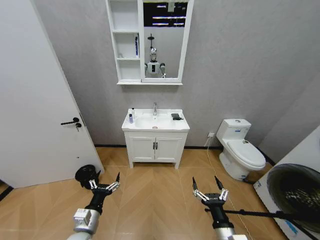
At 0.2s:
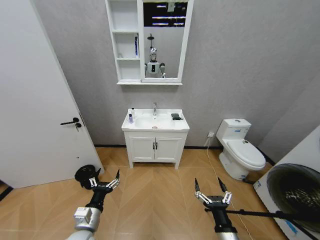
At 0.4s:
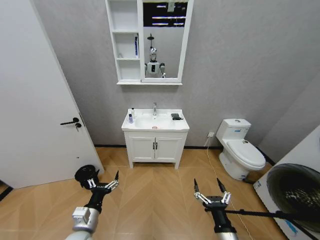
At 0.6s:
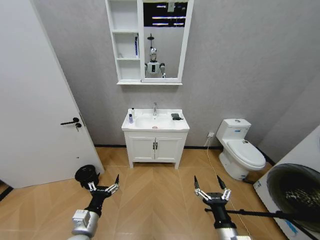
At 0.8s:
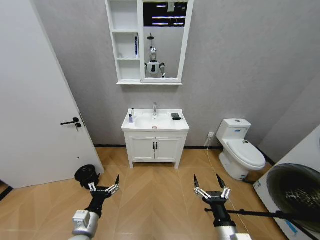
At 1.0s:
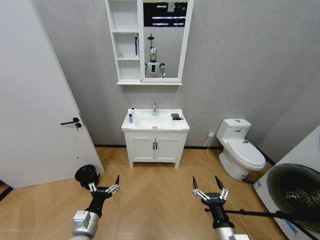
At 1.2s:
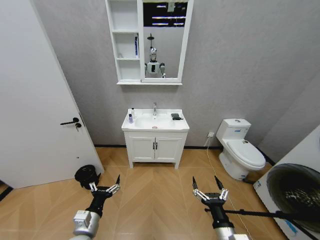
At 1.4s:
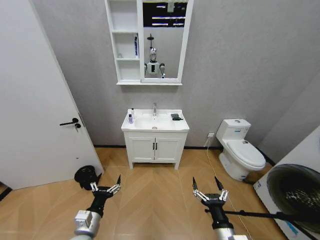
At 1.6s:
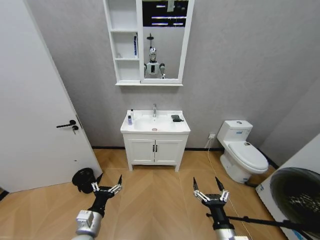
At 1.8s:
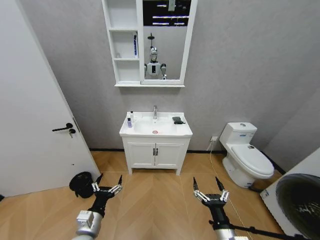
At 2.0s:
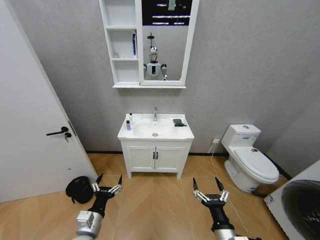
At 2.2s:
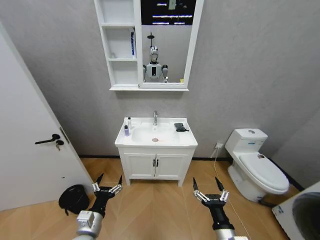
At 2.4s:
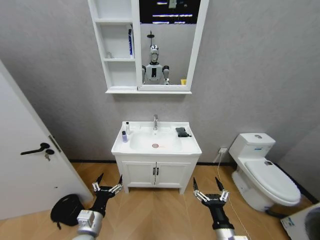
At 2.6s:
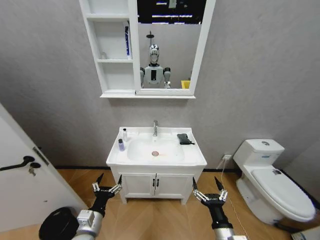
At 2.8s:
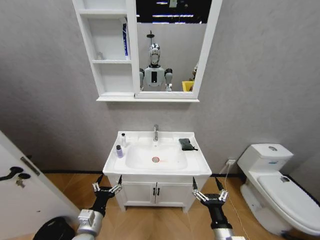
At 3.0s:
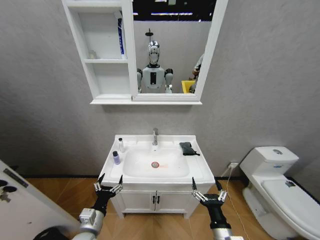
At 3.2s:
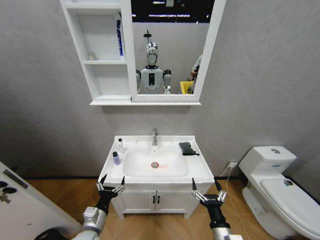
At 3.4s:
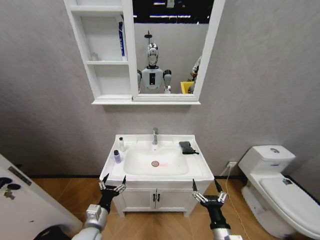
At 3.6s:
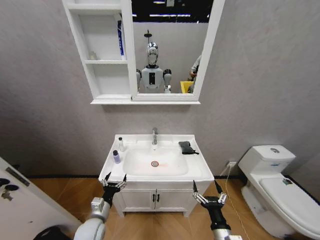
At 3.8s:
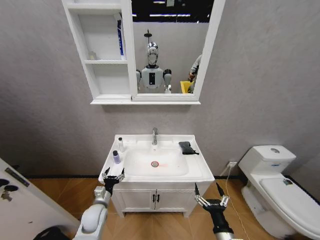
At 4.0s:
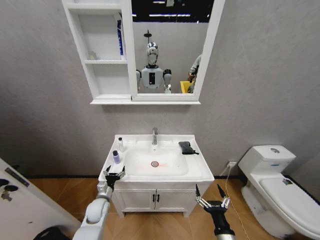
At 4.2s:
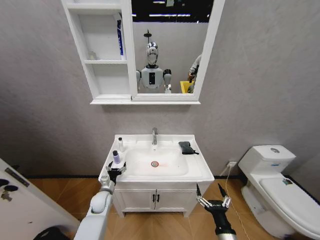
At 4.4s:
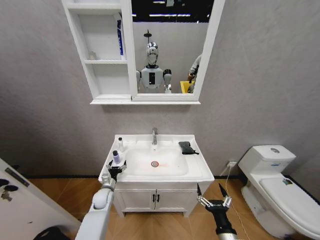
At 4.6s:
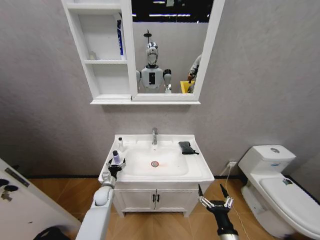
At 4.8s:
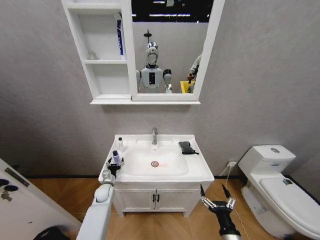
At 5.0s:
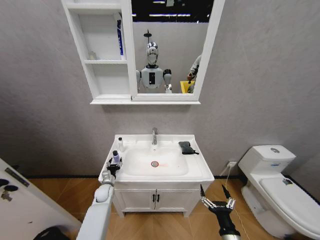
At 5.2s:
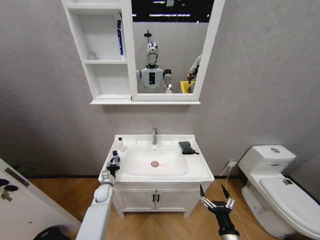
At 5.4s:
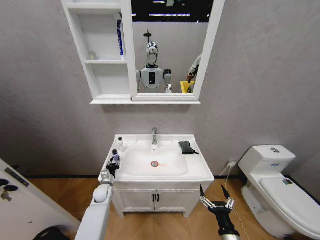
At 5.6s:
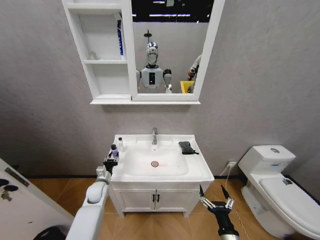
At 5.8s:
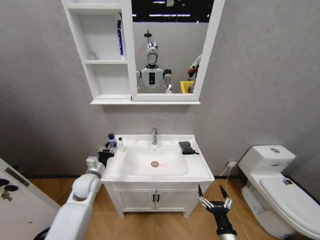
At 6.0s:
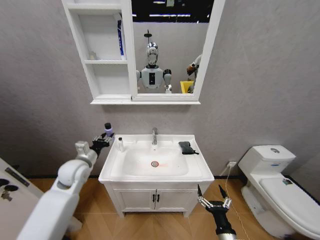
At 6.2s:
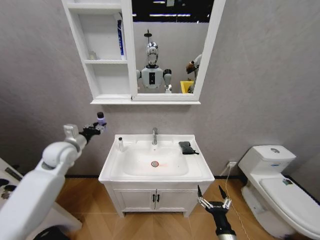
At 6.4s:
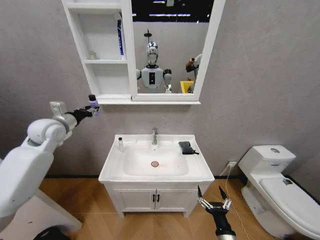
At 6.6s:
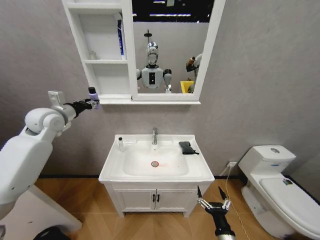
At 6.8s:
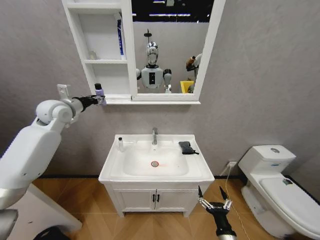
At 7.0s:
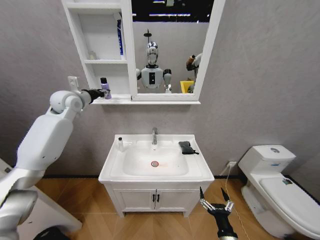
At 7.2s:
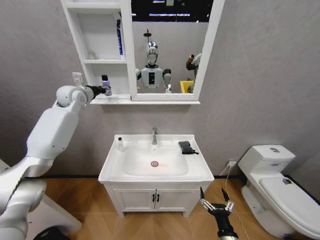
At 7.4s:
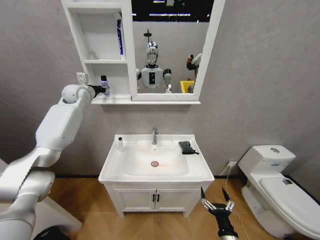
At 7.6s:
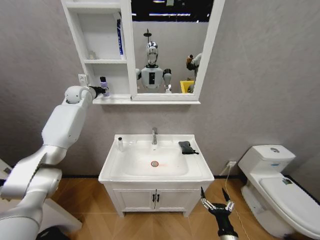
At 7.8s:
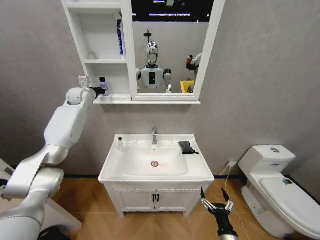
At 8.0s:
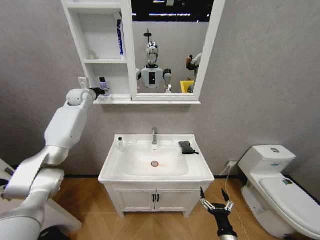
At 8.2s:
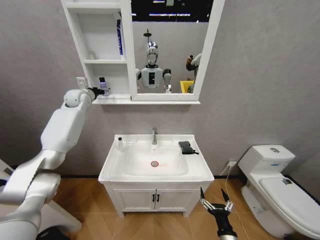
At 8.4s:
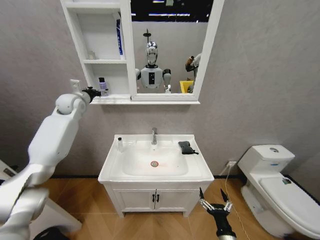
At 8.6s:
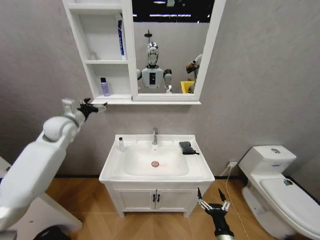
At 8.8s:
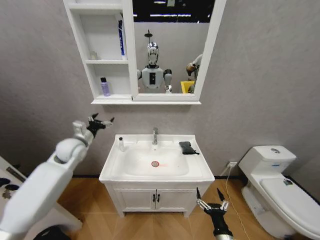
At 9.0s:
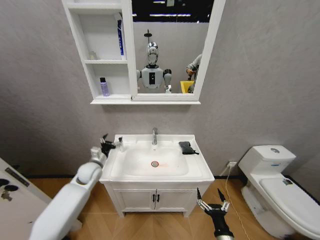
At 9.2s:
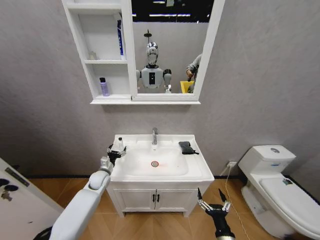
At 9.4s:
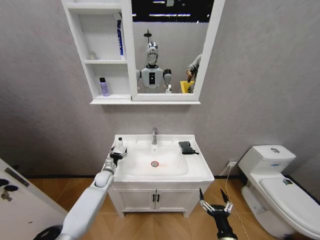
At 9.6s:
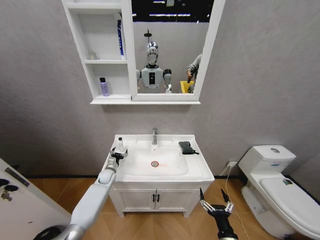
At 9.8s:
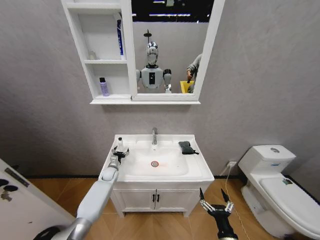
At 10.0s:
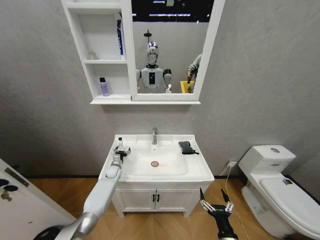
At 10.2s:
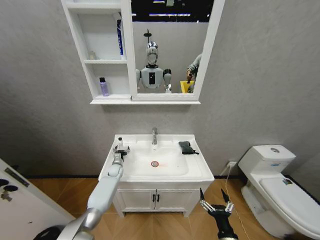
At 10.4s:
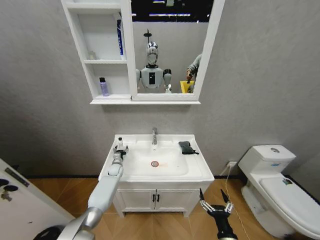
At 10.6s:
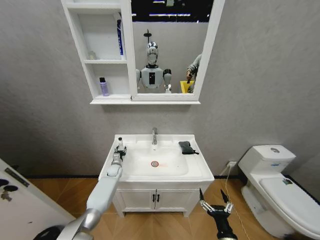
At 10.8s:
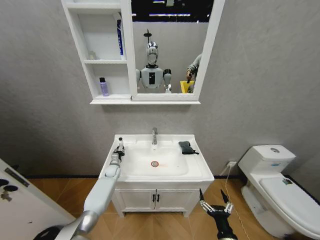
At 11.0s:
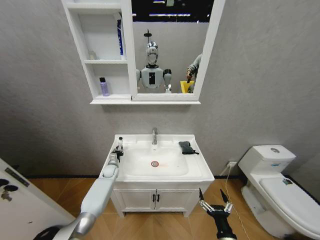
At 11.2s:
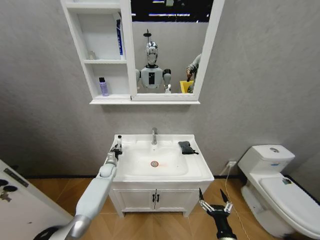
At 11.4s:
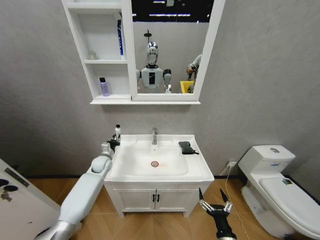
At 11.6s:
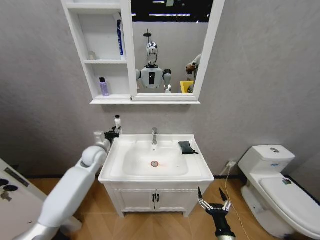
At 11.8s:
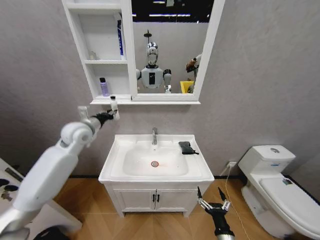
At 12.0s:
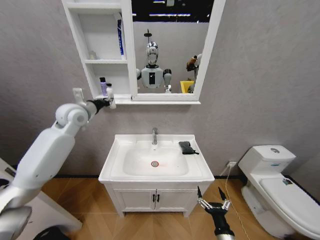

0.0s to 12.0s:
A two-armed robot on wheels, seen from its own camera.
Task of the whole recording: Move facial cleanser and shampoo from washbasin to cabinet, then wipe washbasin with towel.
3.0s to 4.4s: The left gripper heads forward and downward, covering about 20 cm.
4.4s to 6.0s: The left gripper heads upward, covering roughly 25 cm, and closes up.
6.0s to 7.6s: The left gripper moves forward and upward, some 35 cm.
7.6s to 9.0s: The left gripper heads downward and backward, covering about 35 cm, and opens its fingers.
9.0s to 10.4s: The left gripper shifts some 20 cm downward and forward.
10.4s to 12.0s: The left gripper goes roughly 40 cm upward, and closes up.

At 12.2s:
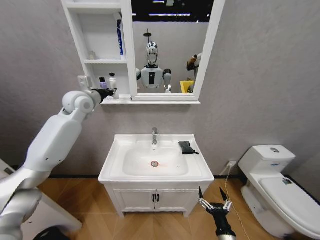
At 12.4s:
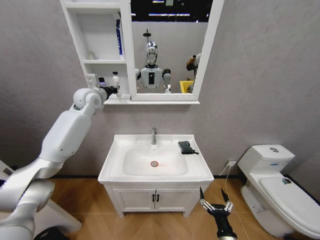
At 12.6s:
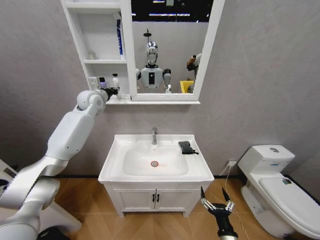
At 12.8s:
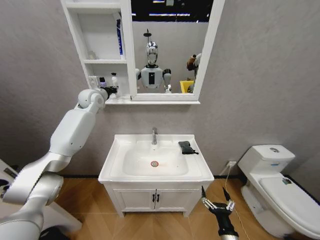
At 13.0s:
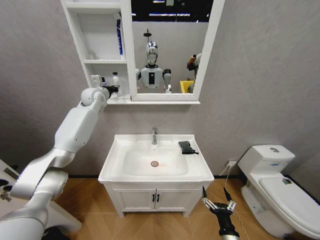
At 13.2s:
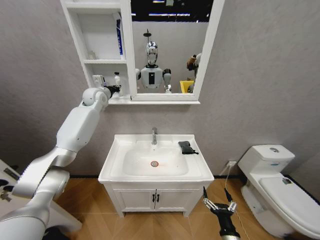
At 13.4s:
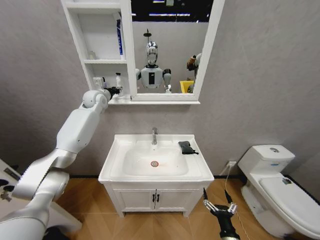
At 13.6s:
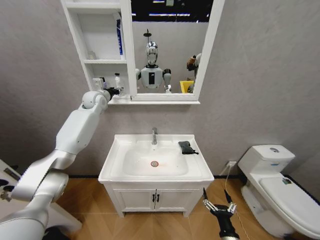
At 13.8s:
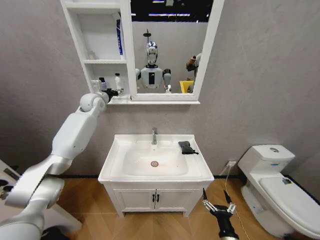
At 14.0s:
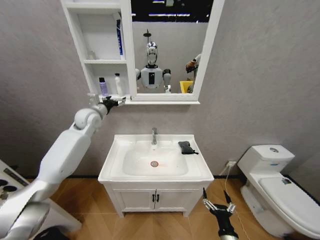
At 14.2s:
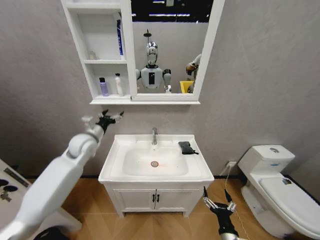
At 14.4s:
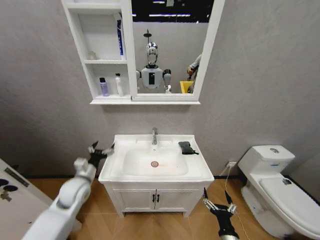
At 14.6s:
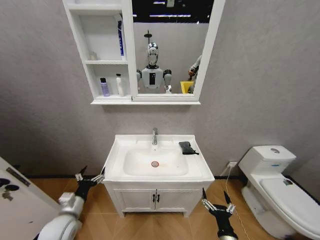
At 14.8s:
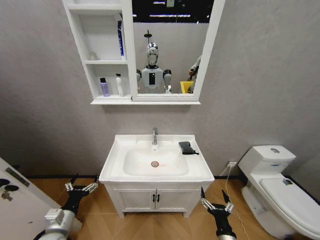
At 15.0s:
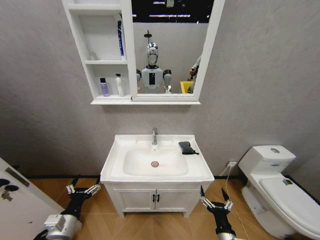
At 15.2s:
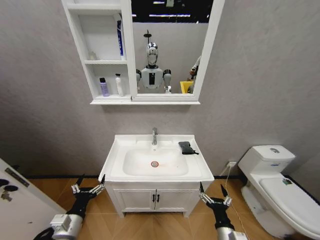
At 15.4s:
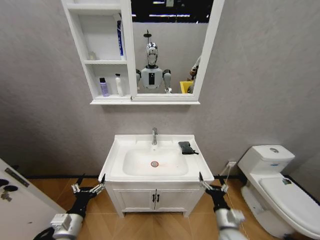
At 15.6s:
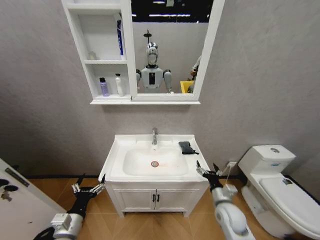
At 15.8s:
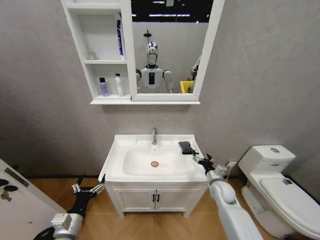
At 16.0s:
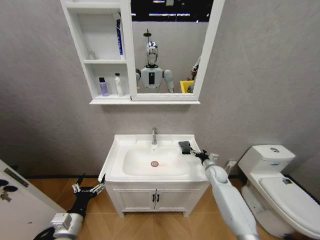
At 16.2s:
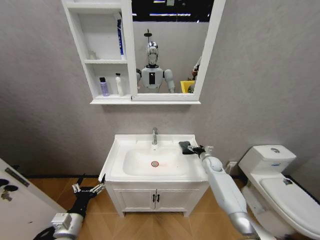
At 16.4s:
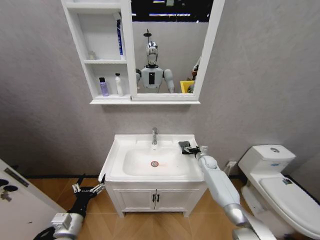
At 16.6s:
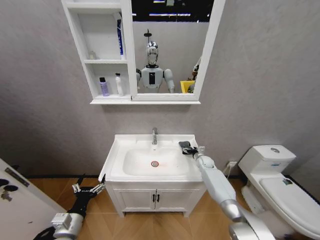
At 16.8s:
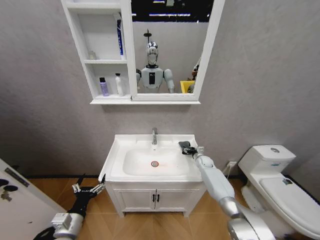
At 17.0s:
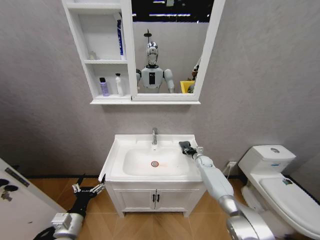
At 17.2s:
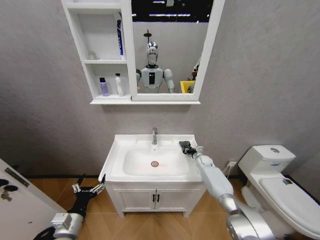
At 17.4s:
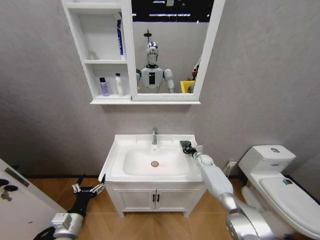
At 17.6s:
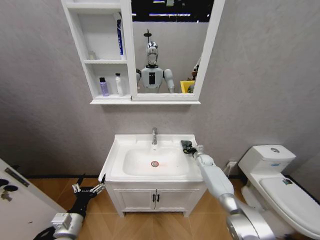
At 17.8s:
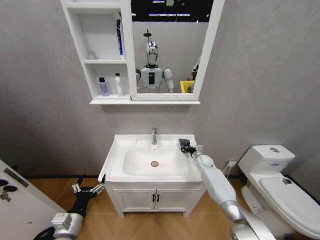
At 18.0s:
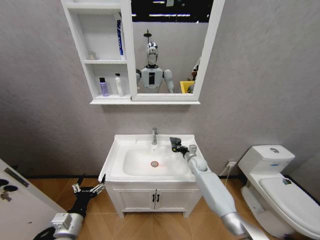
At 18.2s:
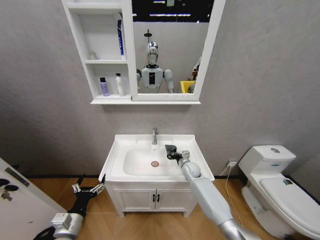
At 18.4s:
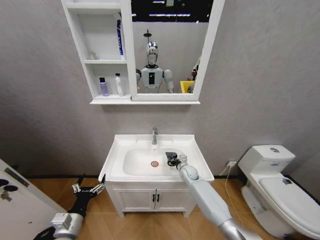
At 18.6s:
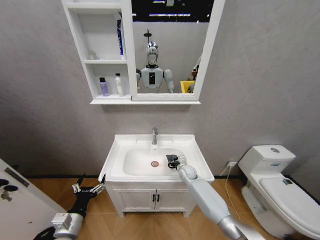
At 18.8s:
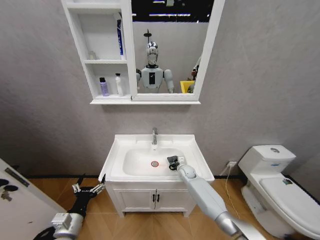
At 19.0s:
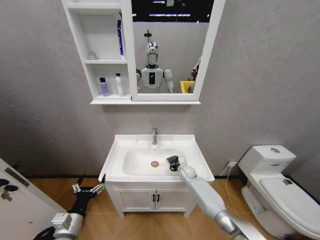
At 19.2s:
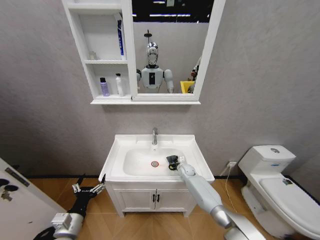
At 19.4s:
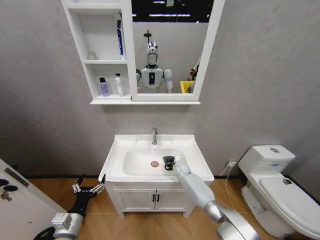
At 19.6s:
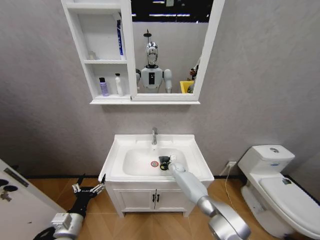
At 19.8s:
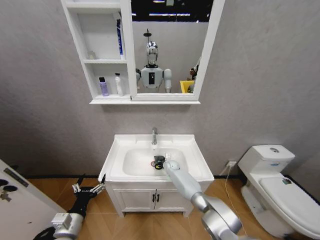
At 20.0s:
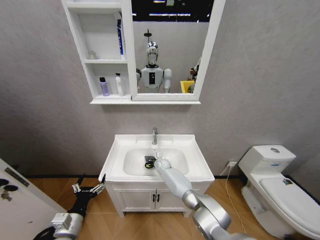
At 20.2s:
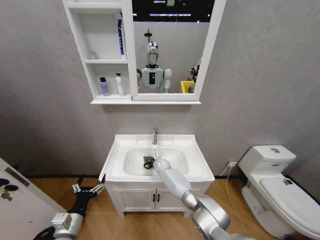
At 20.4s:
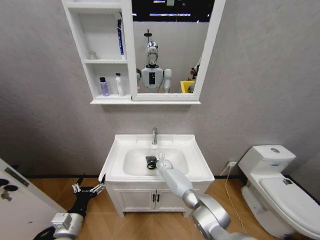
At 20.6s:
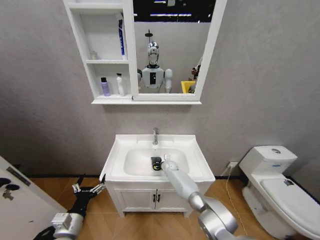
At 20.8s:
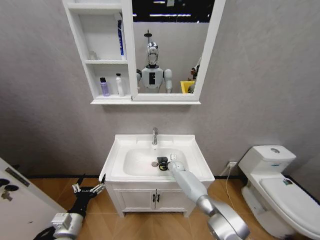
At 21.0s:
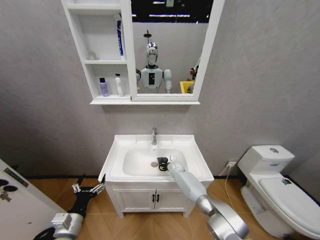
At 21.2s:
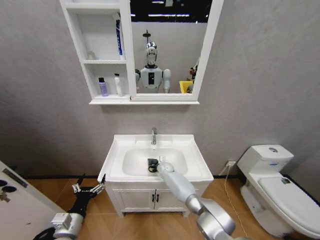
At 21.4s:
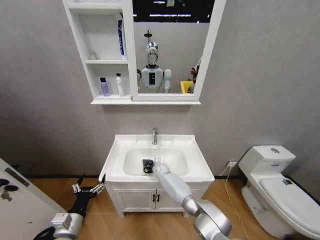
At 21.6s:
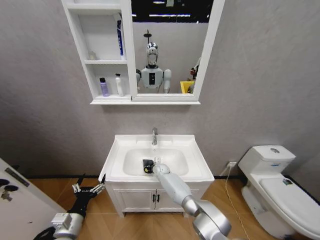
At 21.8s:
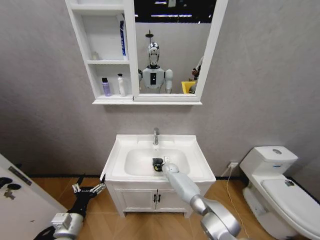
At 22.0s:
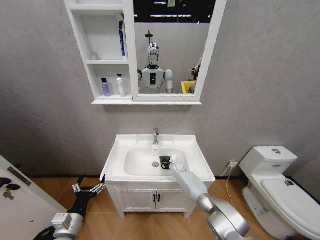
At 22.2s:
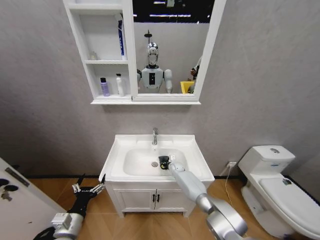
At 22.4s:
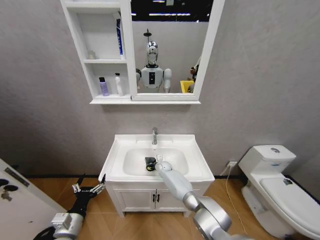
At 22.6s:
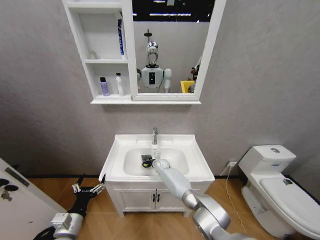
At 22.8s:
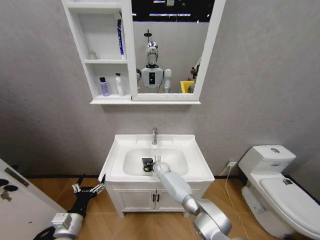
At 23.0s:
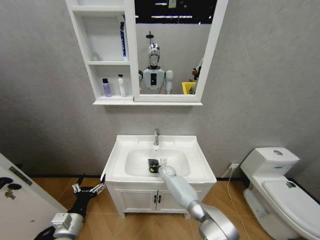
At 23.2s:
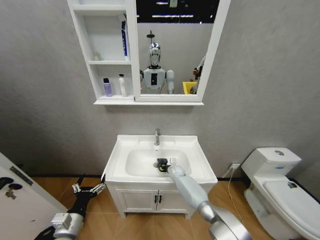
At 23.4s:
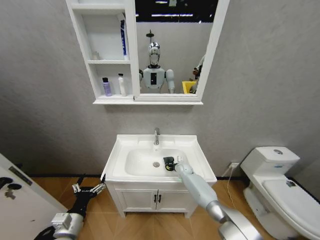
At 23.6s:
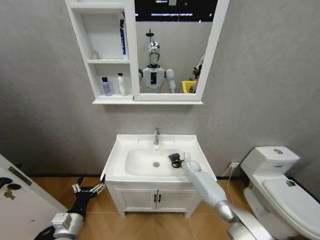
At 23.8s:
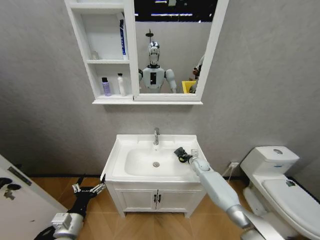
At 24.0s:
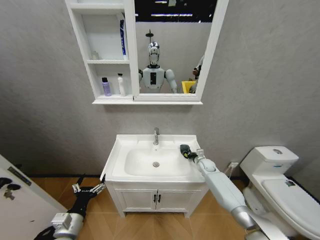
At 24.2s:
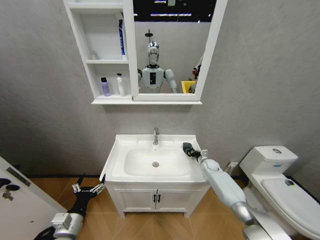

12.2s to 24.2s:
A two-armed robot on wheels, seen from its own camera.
Task of the whole recording: Move facial cleanser and shampoo from washbasin to cabinet, then wipe washbasin with towel.
12.2s to 13.8s: The left gripper shifts approximately 5 cm forward, and opens its fingers.
13.8s to 15.2s: The left gripper shifts approximately 50 cm backward and downward.
15.2s to 16.6s: The right gripper shifts roughly 40 cm forward.
16.6s to 18.2s: The right gripper goes some 15 cm to the left and backward, and closes.
18.2s to 19.8s: The right gripper is displaced to the left, forward and downward by roughly 15 cm.
19.8s to 21.2s: The right gripper swings left and right, approximately 10 cm each way, with 2 reversals.
21.2s to 22.6s: The right gripper goes to the right and returns, roughly 10 cm each way.
22.6s to 24.2s: The right gripper shifts approximately 30 cm to the right.
